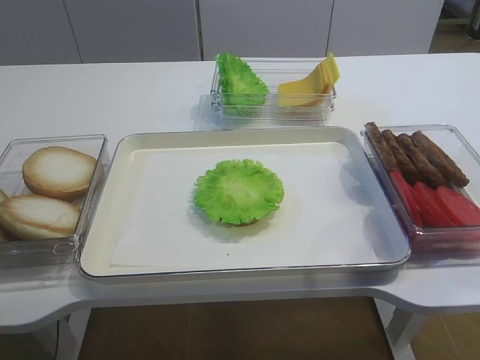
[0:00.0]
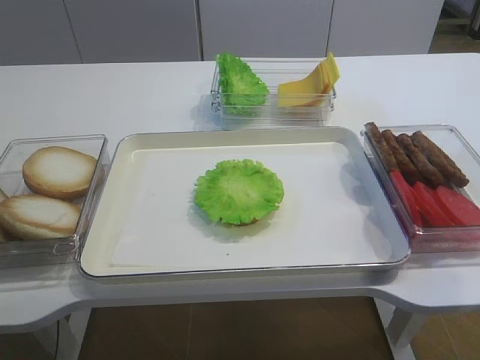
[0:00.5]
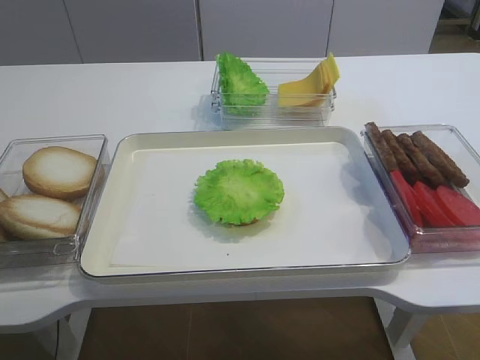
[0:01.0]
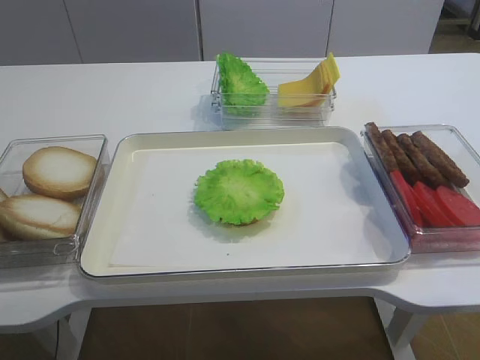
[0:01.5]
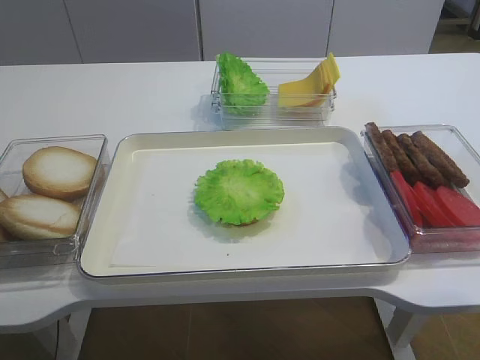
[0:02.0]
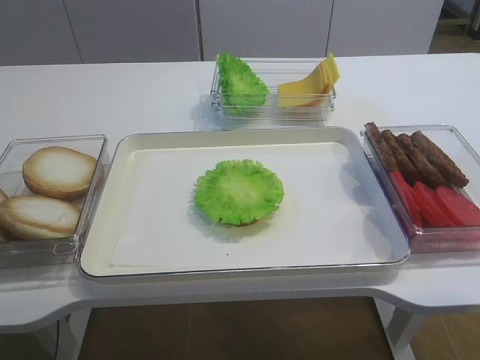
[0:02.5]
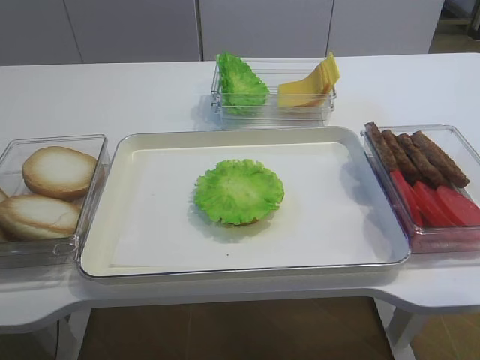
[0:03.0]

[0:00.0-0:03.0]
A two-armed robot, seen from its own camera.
0:00.0 to 0:01.5: The right gripper moves backward and downward, about 10 cm.
0:01.5 to 0:03.0: Neither gripper changes place.
